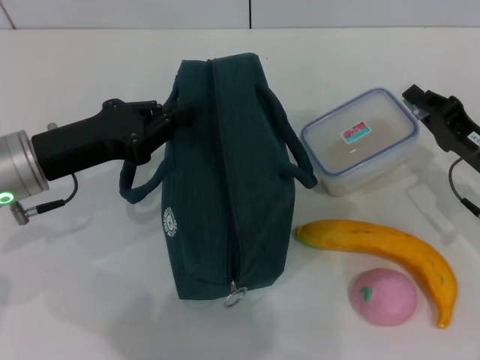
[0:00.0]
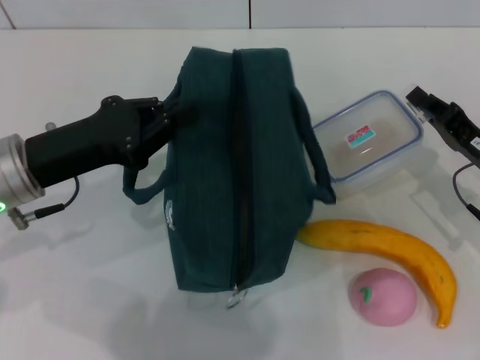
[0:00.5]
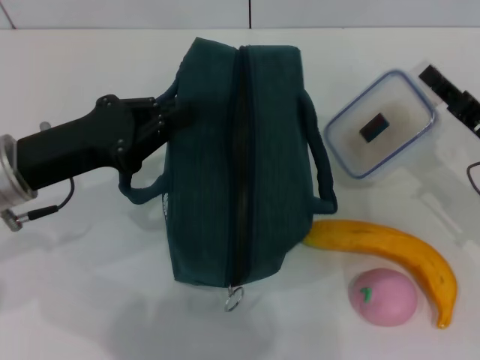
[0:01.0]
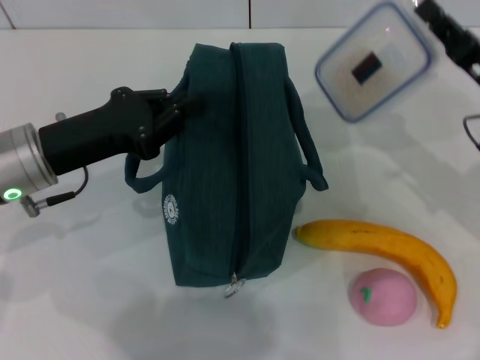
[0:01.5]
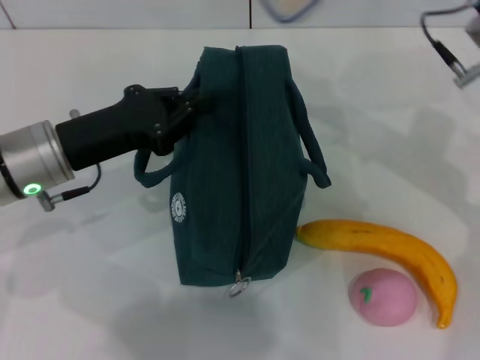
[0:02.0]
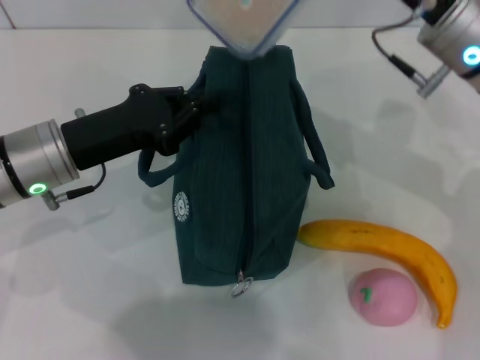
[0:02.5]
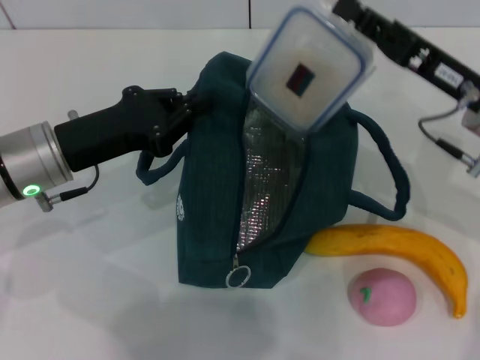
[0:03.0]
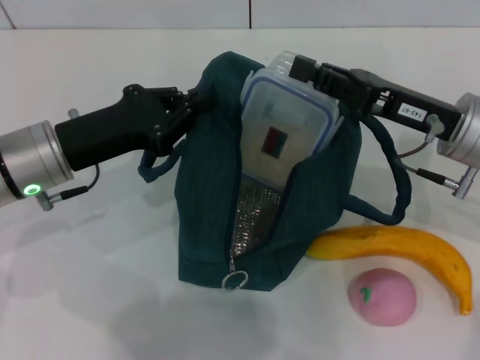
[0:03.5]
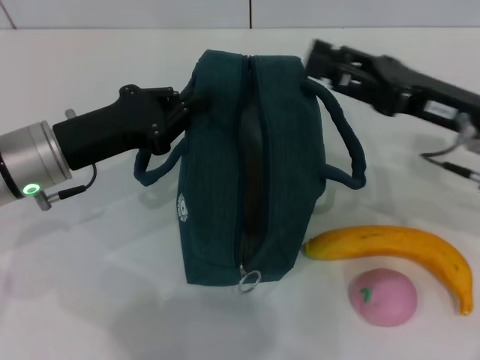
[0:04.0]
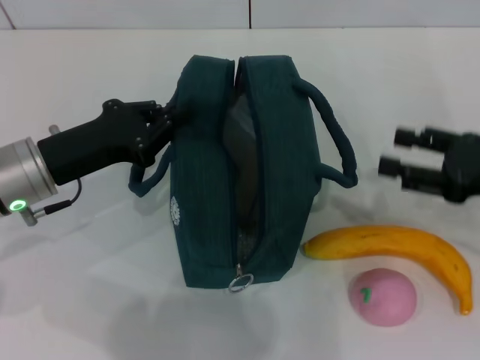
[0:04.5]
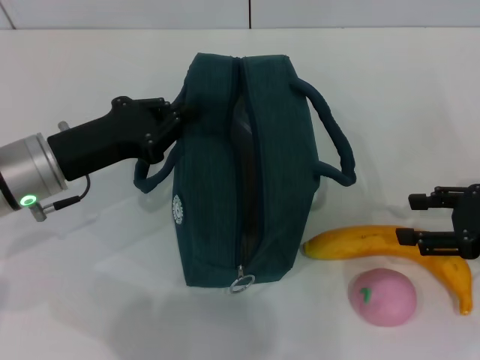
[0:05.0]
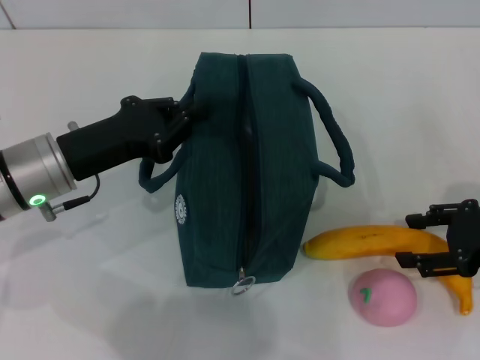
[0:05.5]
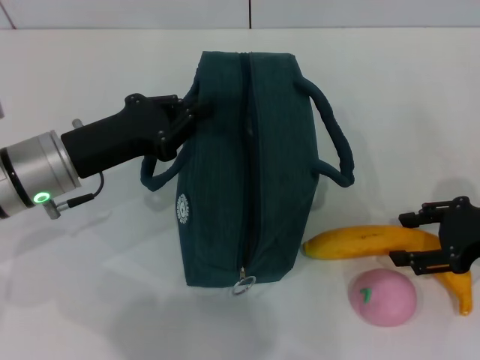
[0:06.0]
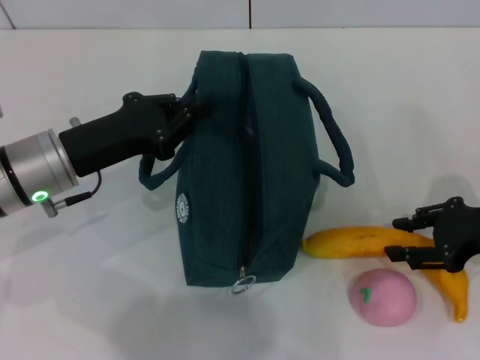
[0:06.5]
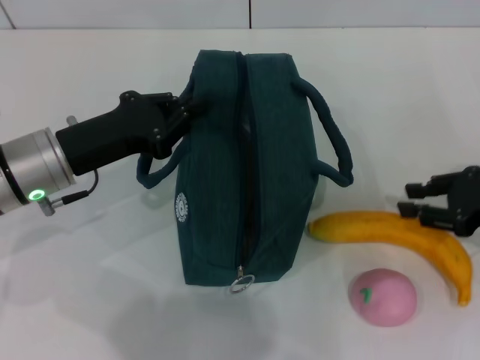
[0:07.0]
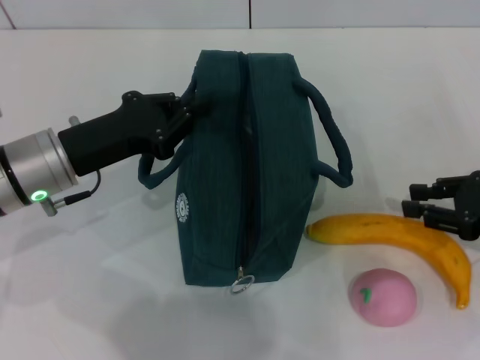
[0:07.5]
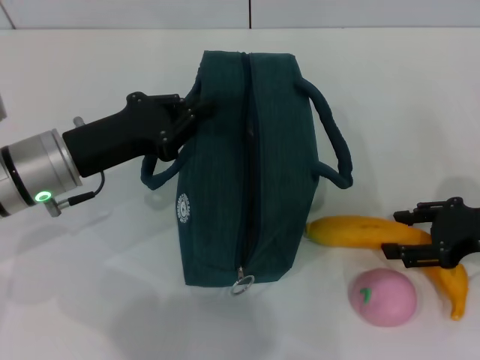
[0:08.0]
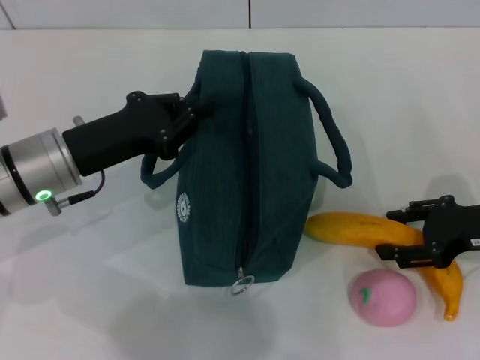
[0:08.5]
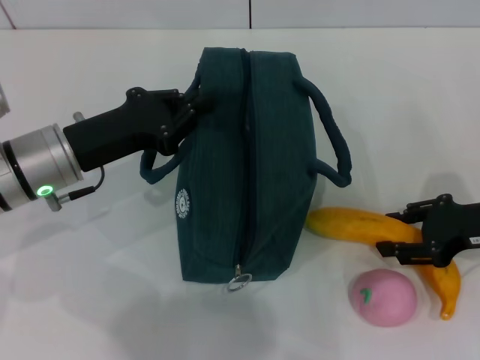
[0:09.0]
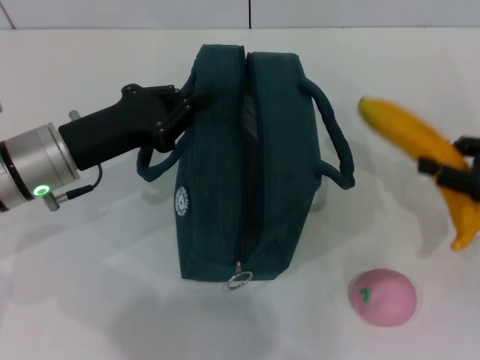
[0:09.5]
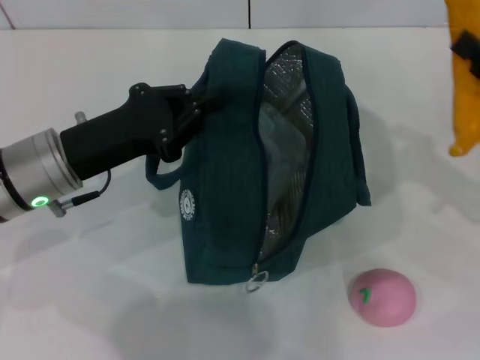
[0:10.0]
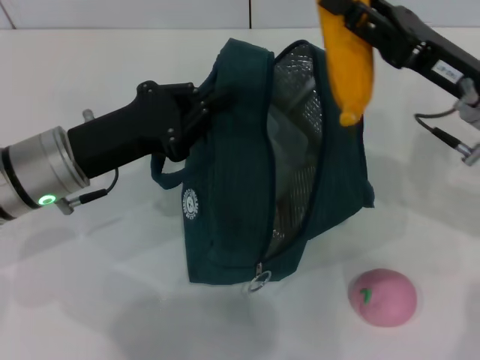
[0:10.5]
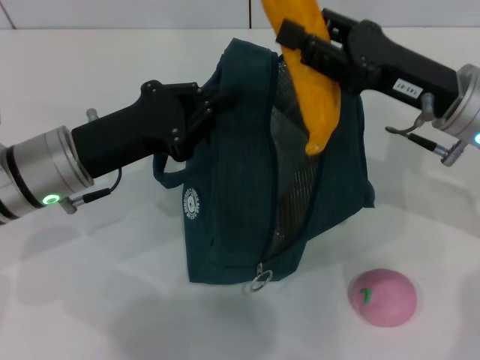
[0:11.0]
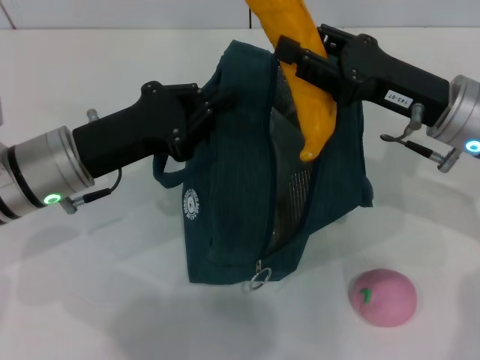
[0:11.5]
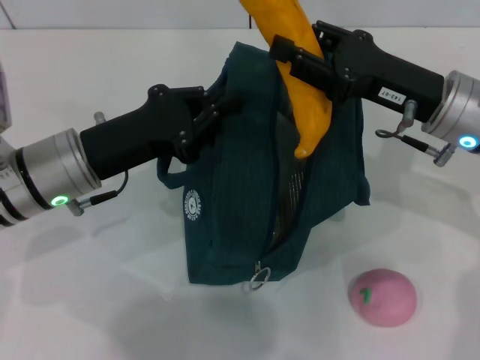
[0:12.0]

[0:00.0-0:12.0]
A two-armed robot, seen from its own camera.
Step, 0:00.5 to 0:03.5: Place the lunch box into the lunch bag with your right hand.
Step, 0:04.0 to 0:09.0: Take the banana with your right hand.
0:00.0 to 0:02.0: The right gripper heads upward, to the left and forward, covering some 15 cm.
0:02.0 to 0:04.0: The right gripper shifts by about 5 cm.
0:04.0 to 0:06.0: The right gripper goes about 10 cm to the right, and opens.
0:06.0 to 0:08.0: The right gripper closes, then opens again.
0:10.0 to 0:12.0: The right gripper is displaced to the left and forward by about 15 cm.

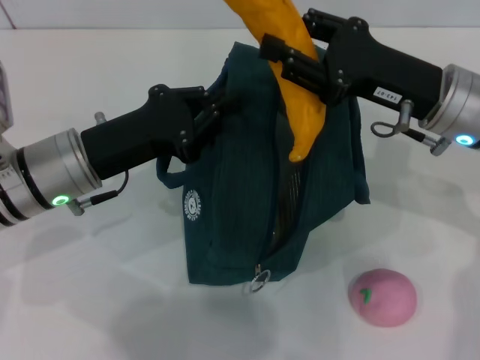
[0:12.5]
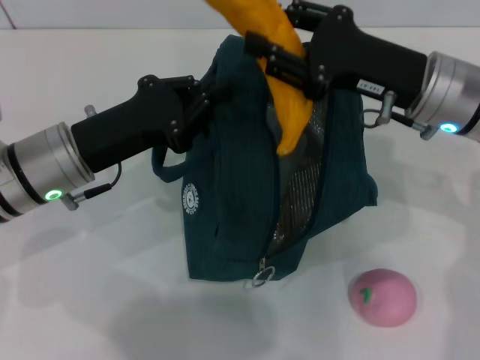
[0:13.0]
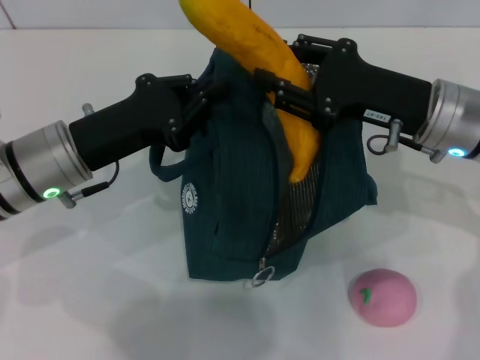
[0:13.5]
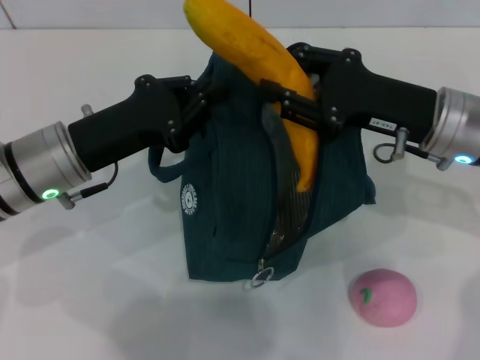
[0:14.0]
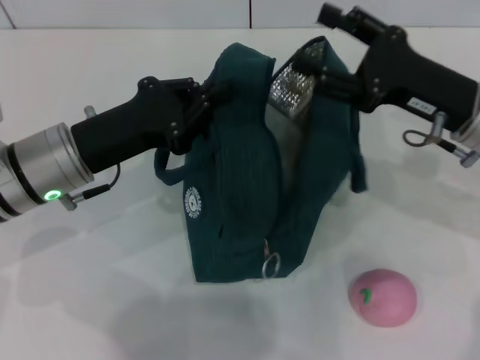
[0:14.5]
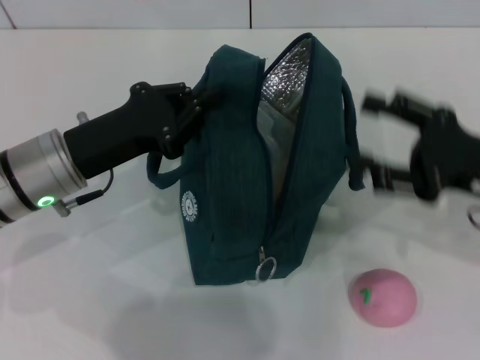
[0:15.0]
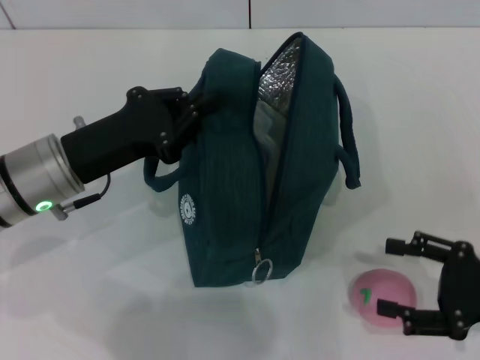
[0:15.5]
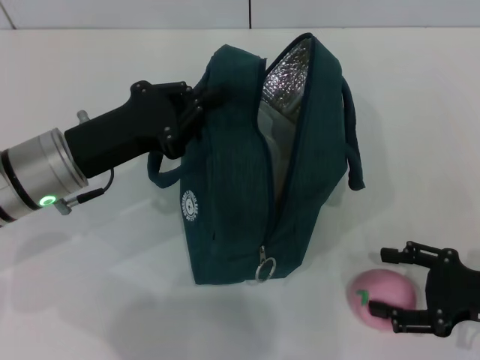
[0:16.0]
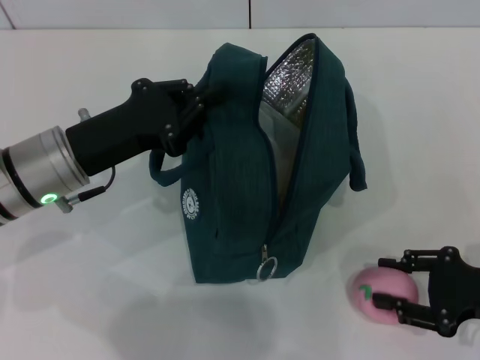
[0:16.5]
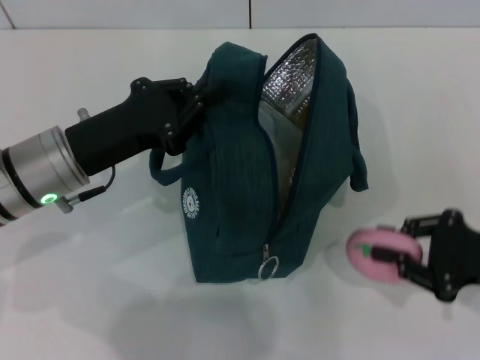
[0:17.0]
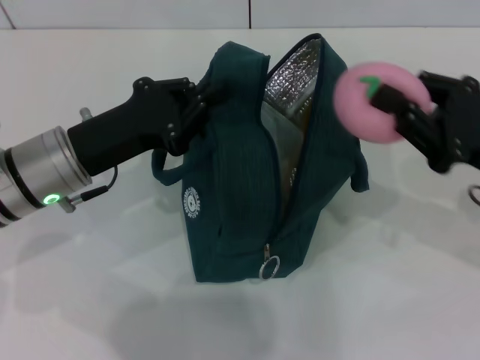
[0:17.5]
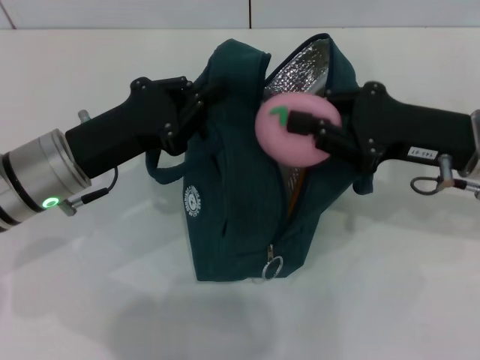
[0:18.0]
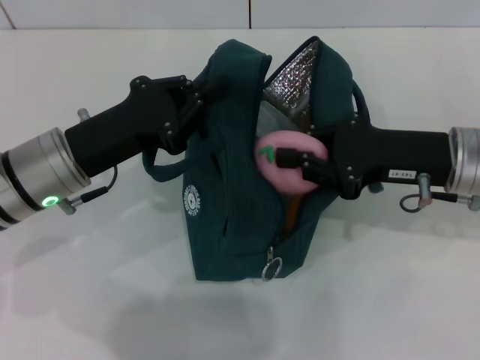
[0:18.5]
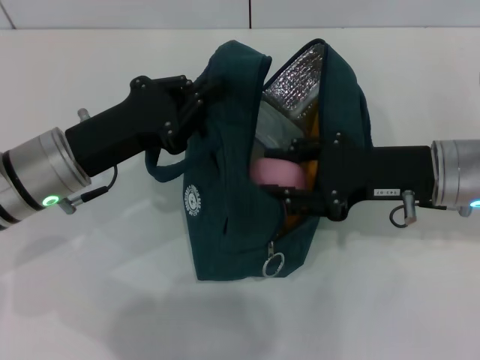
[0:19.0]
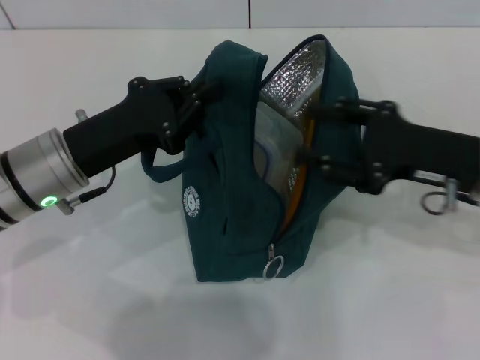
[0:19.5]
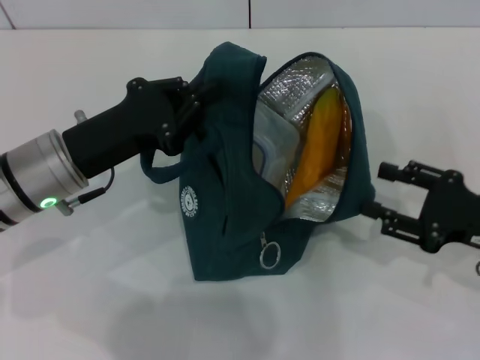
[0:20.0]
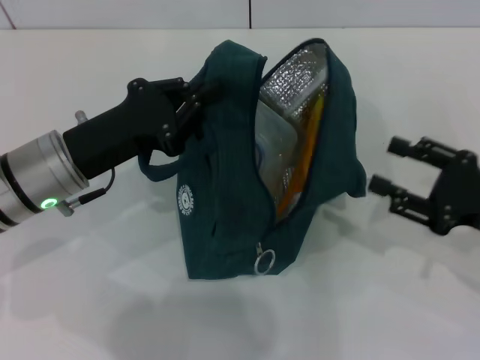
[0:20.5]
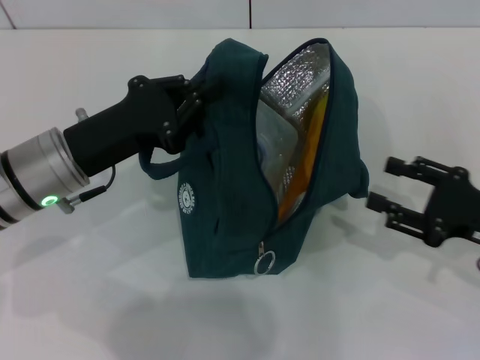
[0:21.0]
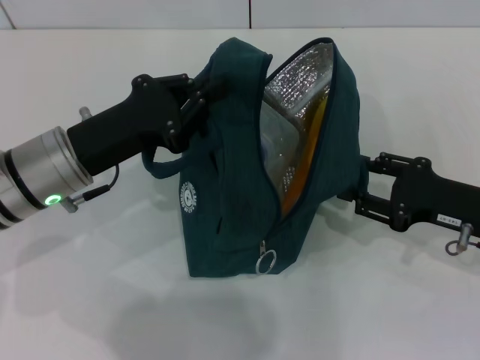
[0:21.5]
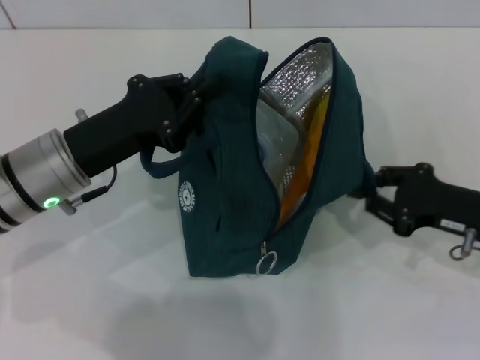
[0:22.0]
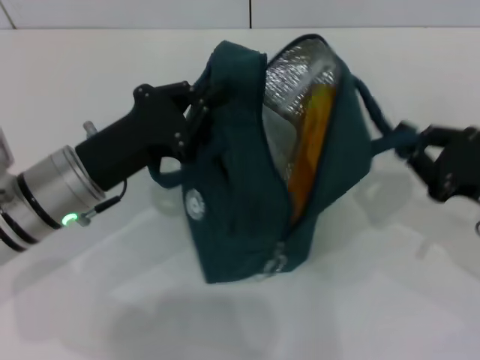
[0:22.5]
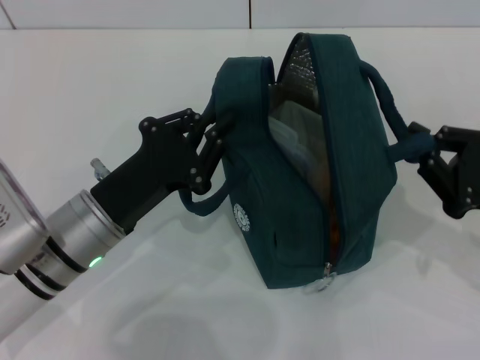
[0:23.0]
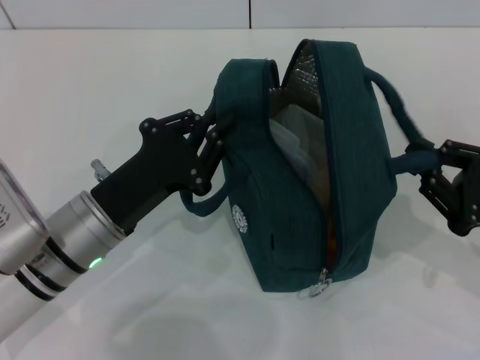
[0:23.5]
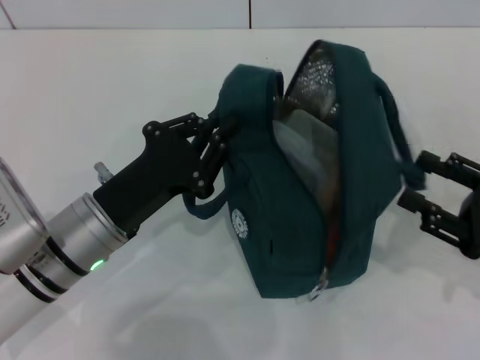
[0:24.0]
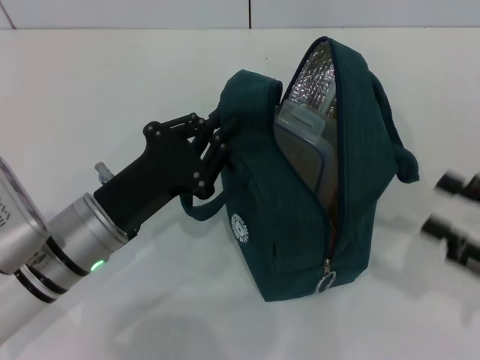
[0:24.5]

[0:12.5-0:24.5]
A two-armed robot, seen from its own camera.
Step, 0:14.5 to 0:16.5: Grab the peach with your right hand.
Step, 0:19.5 to 0:23.5: Hold the lunch bag with your right hand.
0:12.5 to 0:14.5: The grippers stay close to where they were, moving slightly.
0:14.5 to 0:16.5: The right gripper is displaced backward, to the right and downward by roughly 15 cm.
0:16.5 to 0:18.5: The right gripper moves to the left, forward and upward, approximately 15 cm, and closes.
0:18.5 to 0:20.5: The right gripper shifts some 10 cm to the right and backward, and opens.
0:20.5 to 0:22.5: The right gripper closes.
0:22.5 to 0:24.5: The right gripper moves backward, about 5 cm, and opens its fingers.

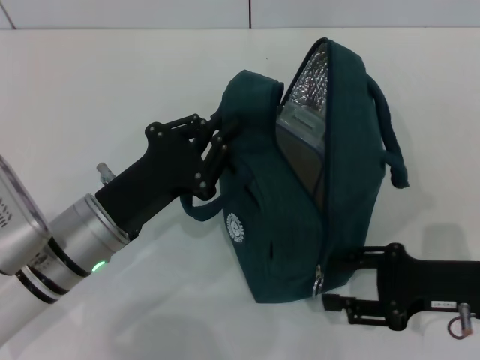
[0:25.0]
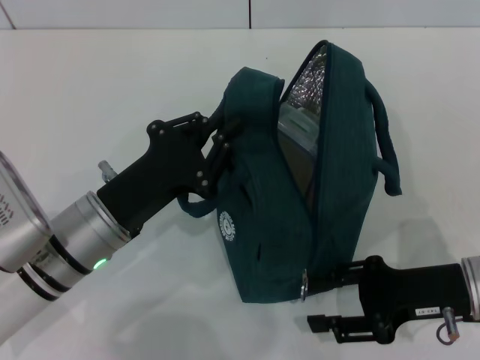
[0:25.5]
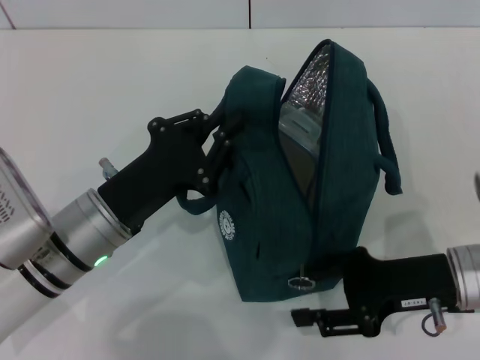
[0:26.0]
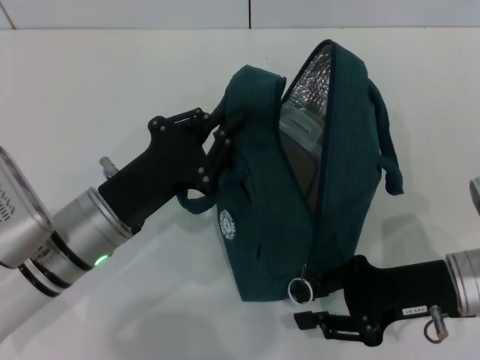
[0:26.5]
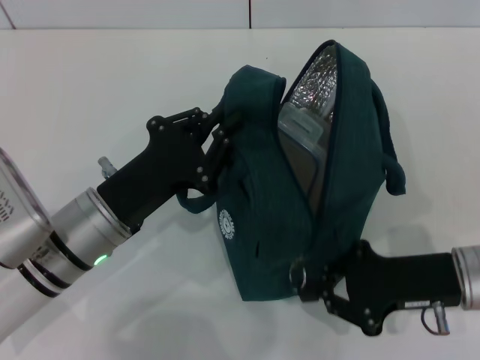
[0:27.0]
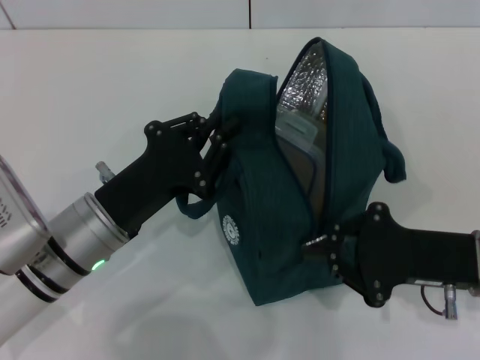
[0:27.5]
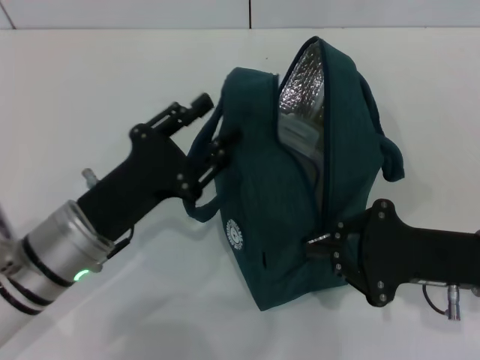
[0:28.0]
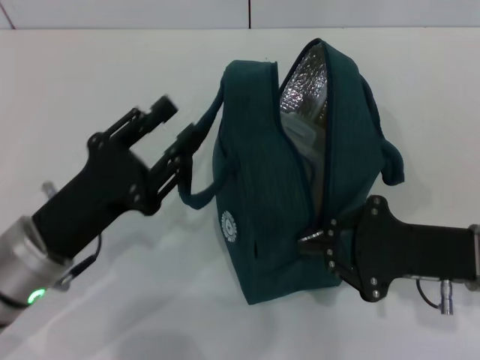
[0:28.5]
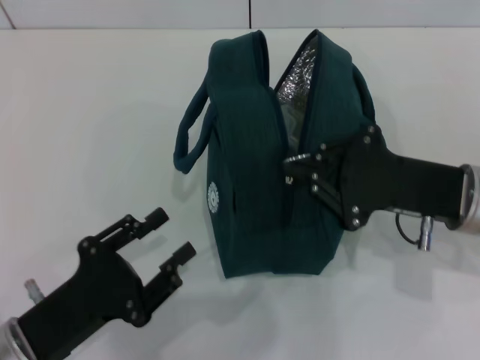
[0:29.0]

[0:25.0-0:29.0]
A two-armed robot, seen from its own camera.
0:25.0 to 0:27.0: The right gripper closes its fingers.
0:27.0 to 0:29.0: The left gripper shifts some 10 cm backward and to the left, and opens. Meanwhile the right gripper changes place by about 5 cm.
